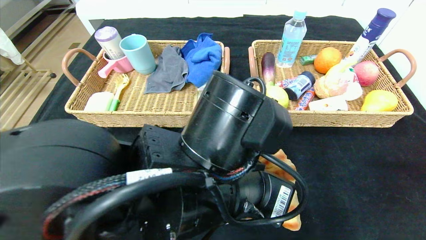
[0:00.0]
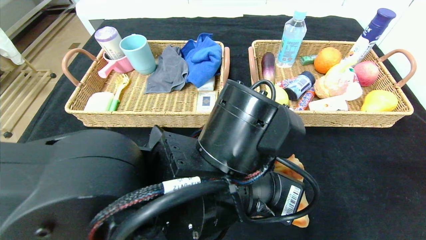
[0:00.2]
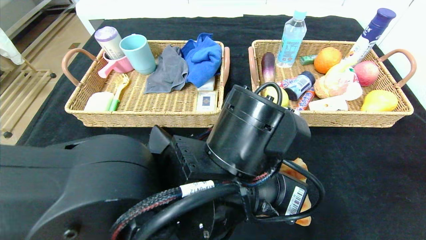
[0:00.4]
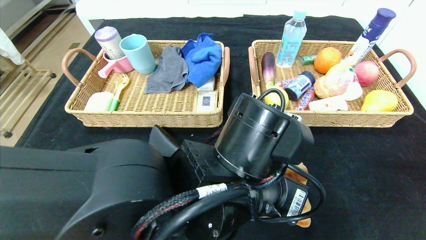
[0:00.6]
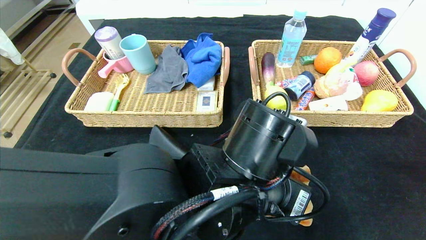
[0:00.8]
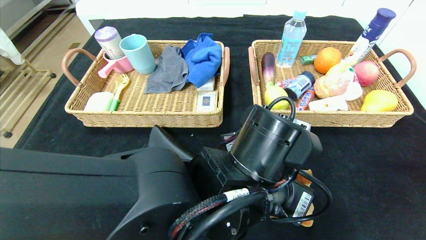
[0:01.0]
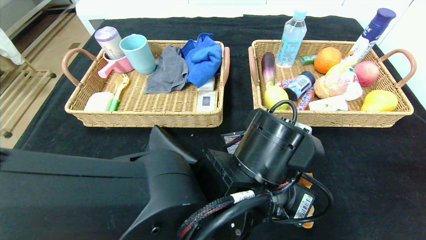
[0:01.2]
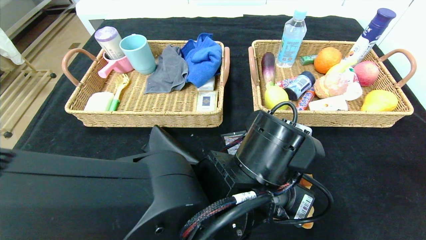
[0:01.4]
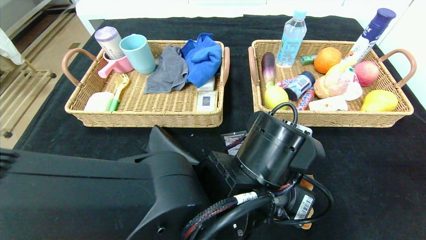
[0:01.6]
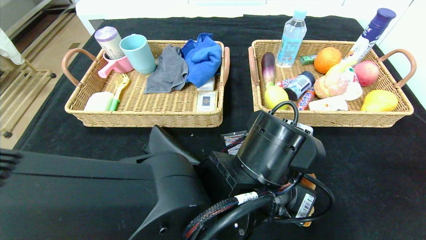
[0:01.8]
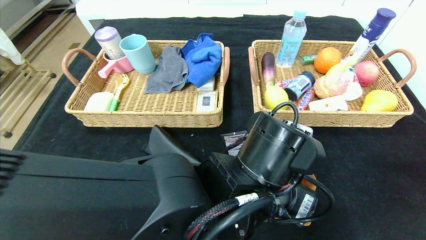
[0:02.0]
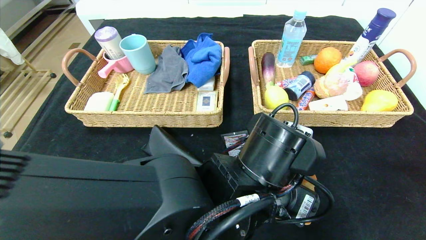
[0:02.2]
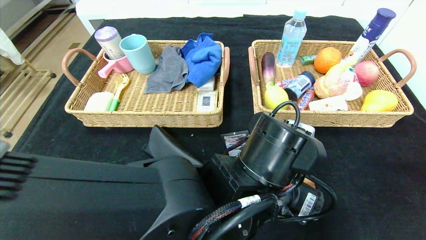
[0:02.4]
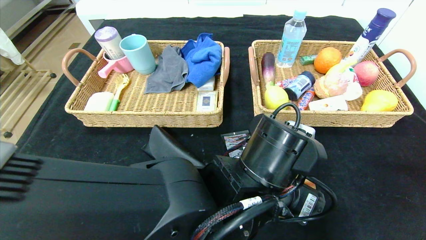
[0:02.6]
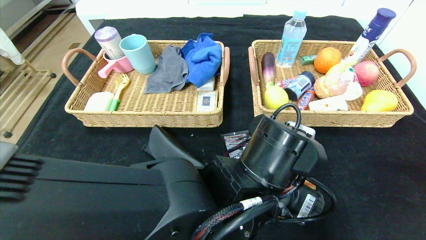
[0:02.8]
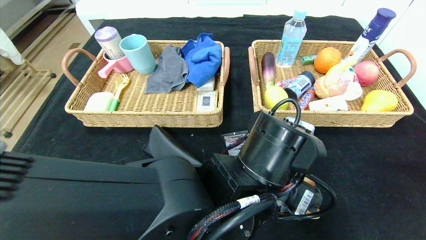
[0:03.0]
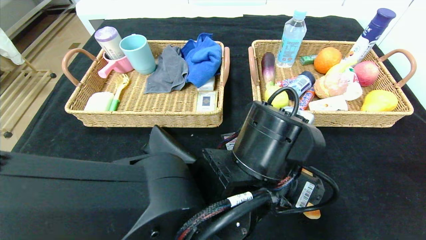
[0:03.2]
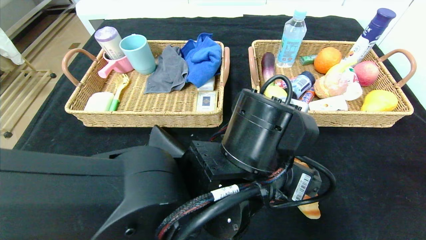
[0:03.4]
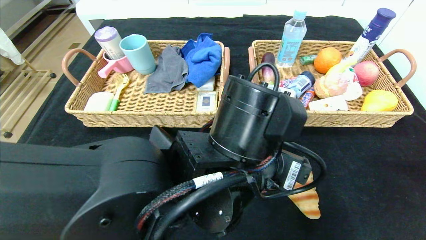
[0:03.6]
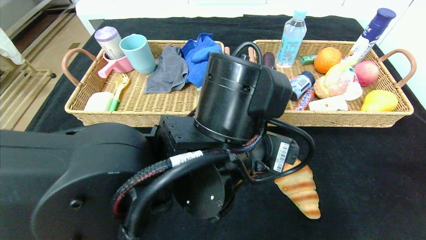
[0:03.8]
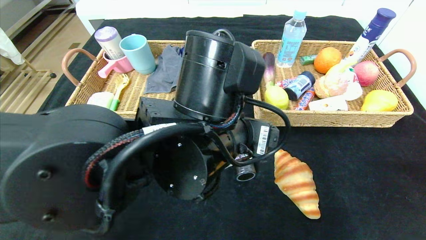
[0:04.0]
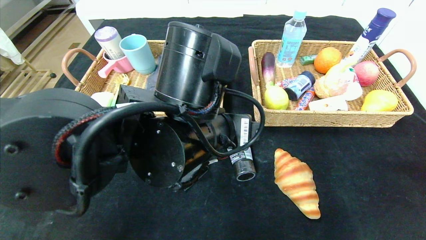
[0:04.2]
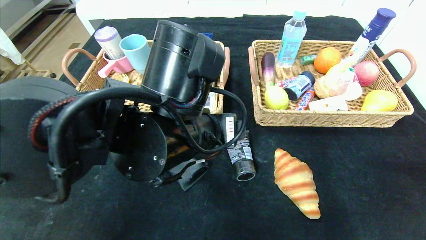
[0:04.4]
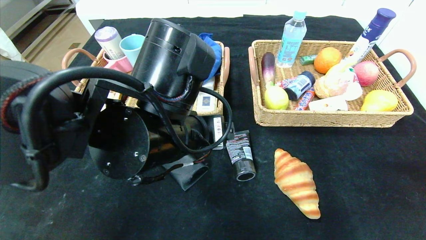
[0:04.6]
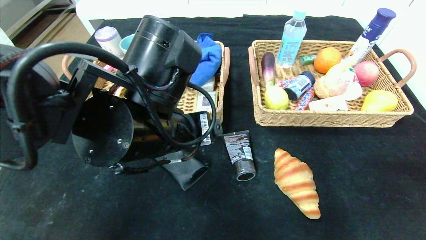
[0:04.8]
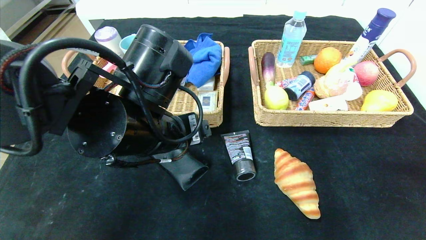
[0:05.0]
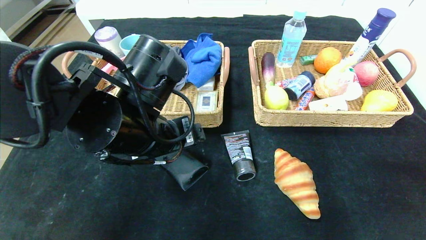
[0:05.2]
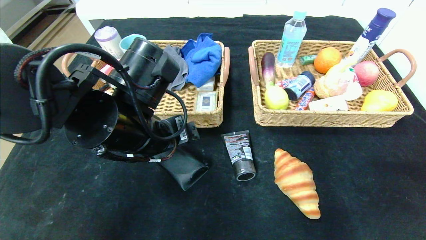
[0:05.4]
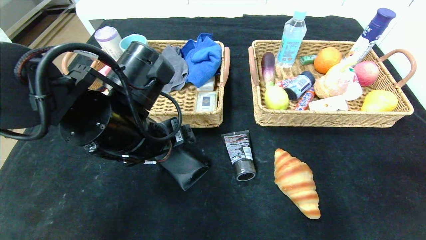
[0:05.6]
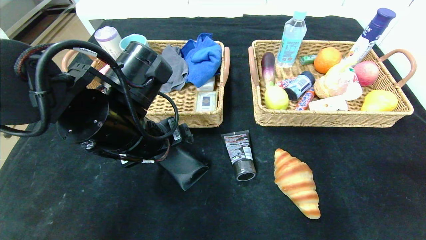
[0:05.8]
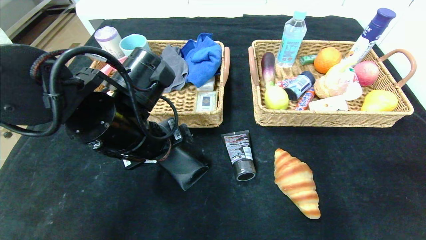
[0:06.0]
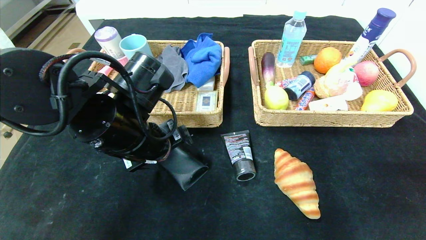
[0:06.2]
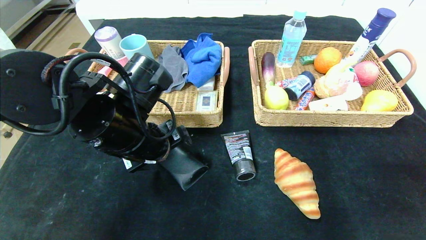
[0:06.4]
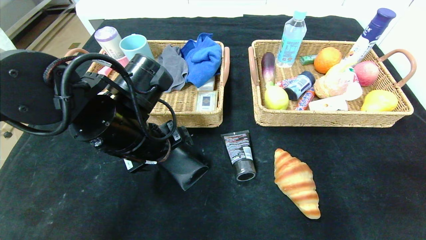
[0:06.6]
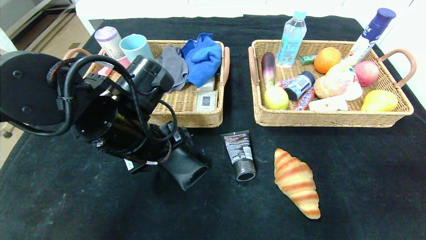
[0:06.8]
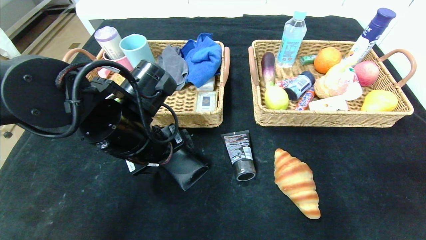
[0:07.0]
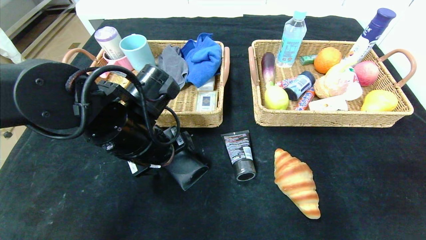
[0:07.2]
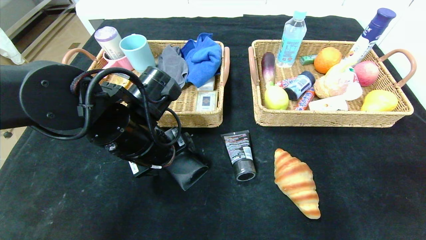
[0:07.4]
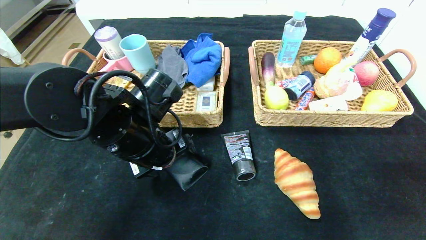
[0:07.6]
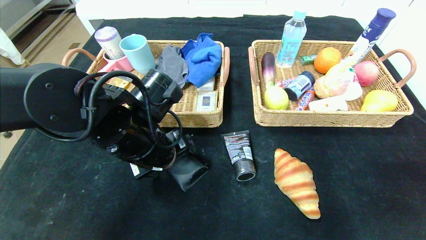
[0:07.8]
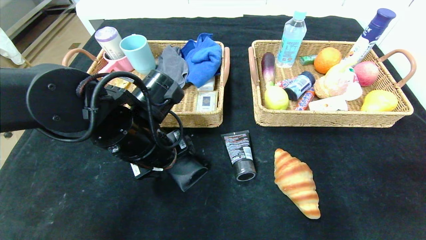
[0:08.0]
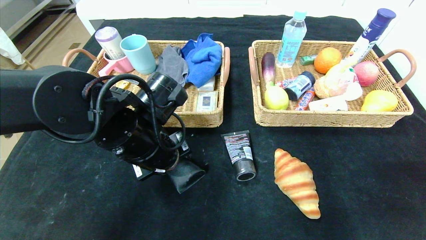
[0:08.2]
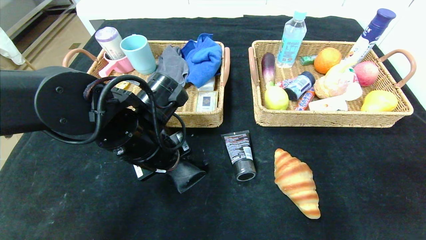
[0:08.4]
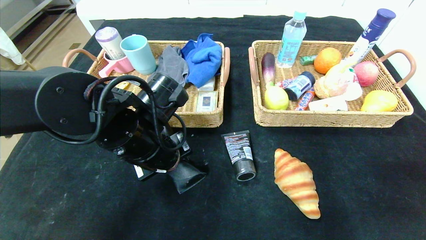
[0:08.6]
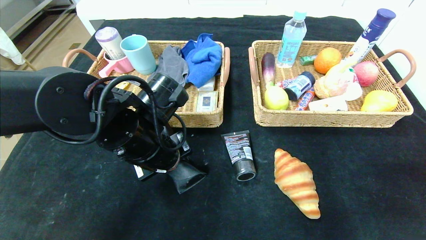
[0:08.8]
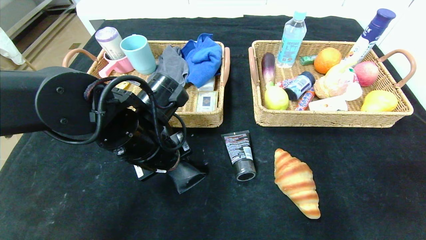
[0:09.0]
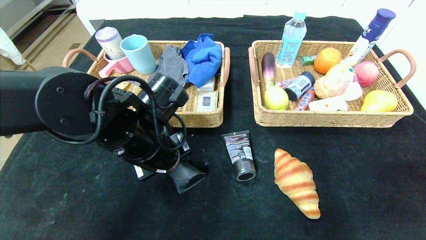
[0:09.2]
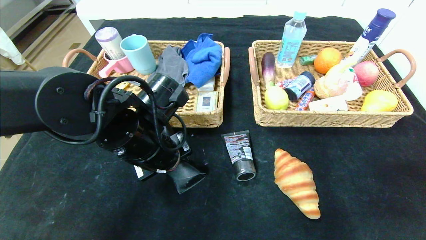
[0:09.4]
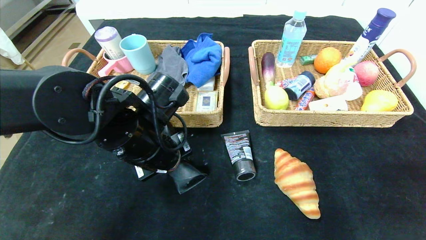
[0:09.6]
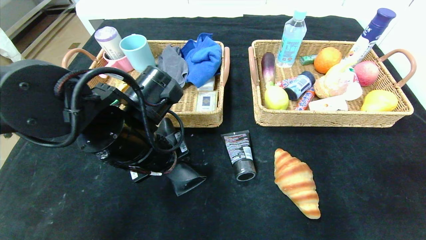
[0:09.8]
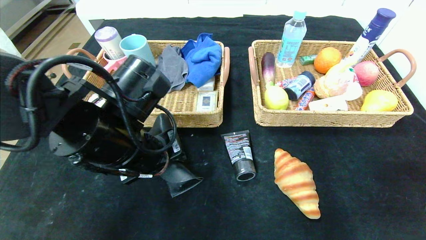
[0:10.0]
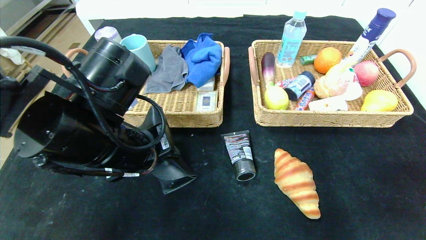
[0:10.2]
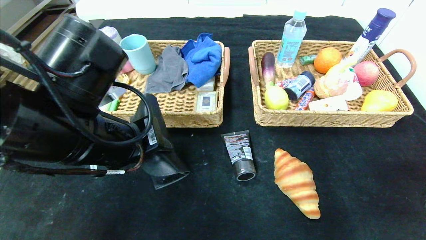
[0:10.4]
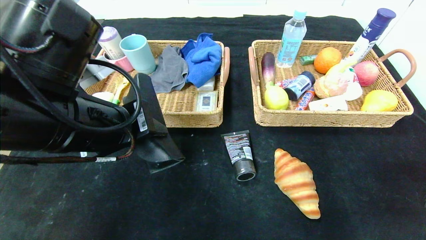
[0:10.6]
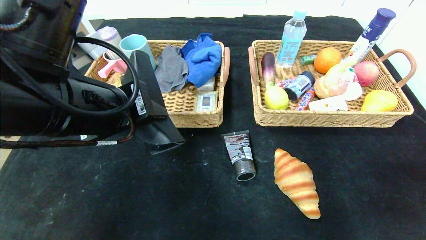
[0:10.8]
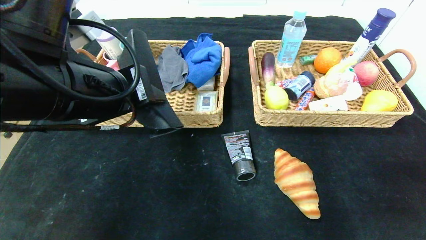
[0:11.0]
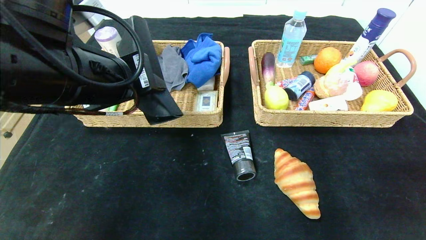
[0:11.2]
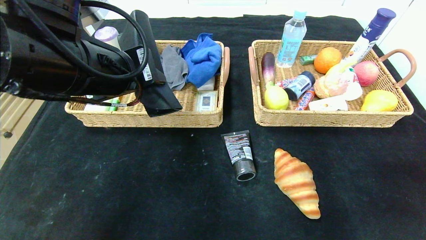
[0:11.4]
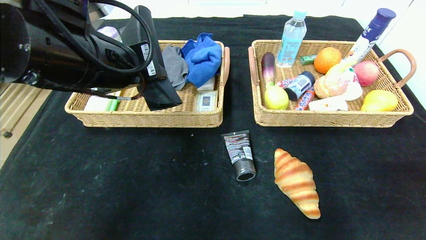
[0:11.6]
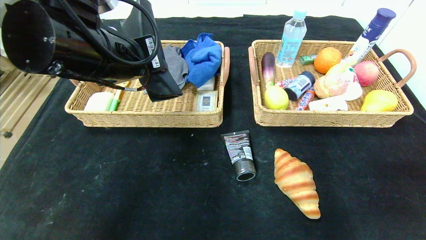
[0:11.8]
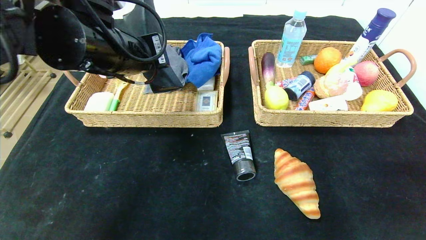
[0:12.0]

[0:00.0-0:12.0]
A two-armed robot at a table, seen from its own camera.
Step, 0:00.0 to 0:03.4: Place the croissant in the center of the table.
0:00.0 to 0:01.6: The left gripper shifts by approximately 5 cm.
0:01.6 to 0:03.0: The left gripper opens its fingers.
0:03.0 to 0:04.4: The left gripper travels to the left and upward by some 10 cm.
0:04.4 to 0:06.0: The left gripper is displaced to the left by roughly 10 cm.
0:06.0 to 0:07.6: The grippers make only small movements.
0:07.6 to 0:09.0: The left gripper closes its fingers.
0:09.0 to 0:10.4: The left gripper goes roughly 10 cm backward and upward.
0:10.4 to 0:12.0: The left gripper travels forward and upward by about 10 cm.

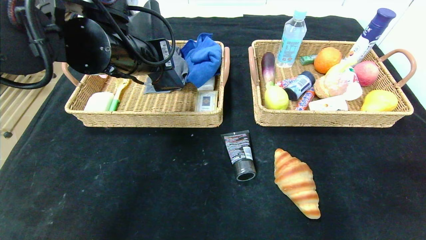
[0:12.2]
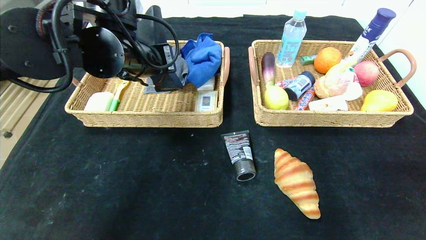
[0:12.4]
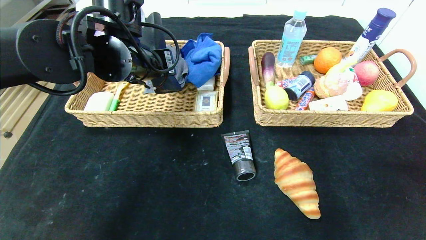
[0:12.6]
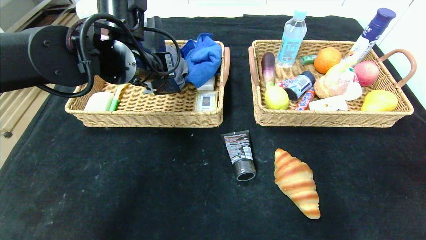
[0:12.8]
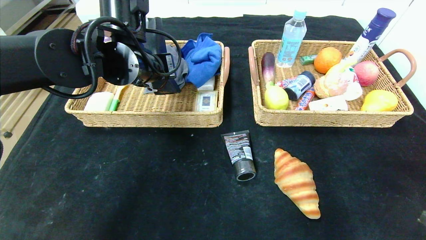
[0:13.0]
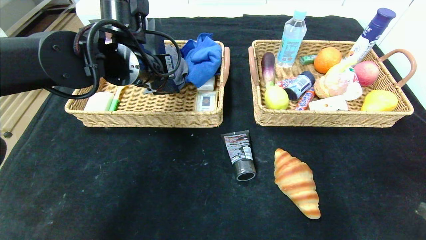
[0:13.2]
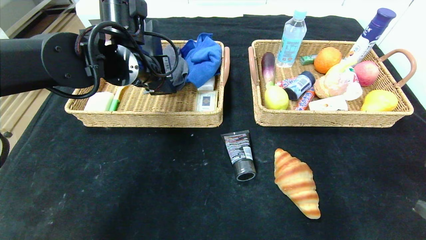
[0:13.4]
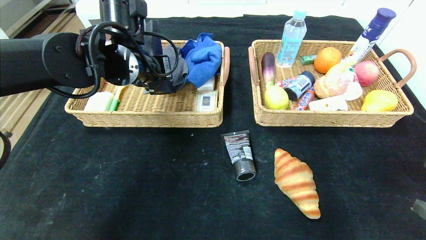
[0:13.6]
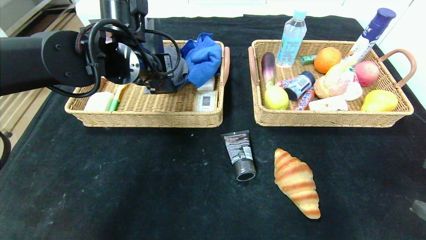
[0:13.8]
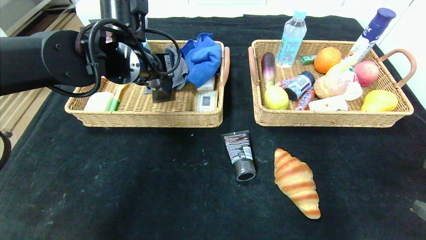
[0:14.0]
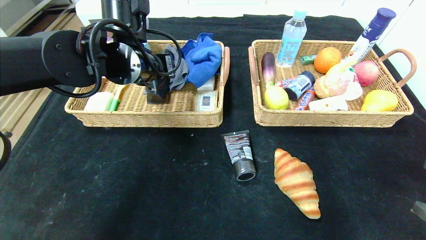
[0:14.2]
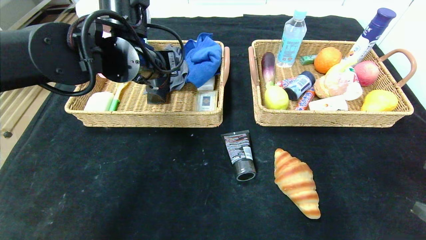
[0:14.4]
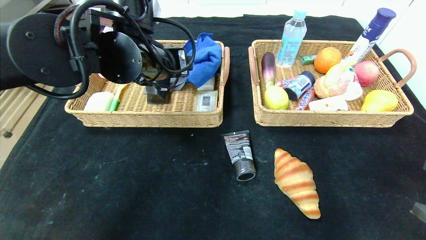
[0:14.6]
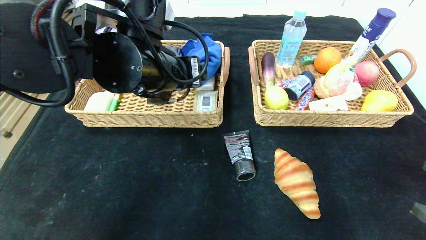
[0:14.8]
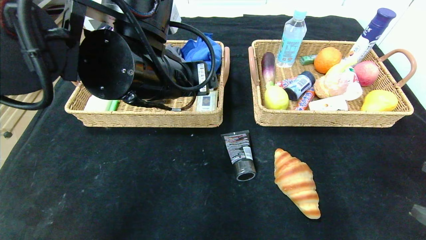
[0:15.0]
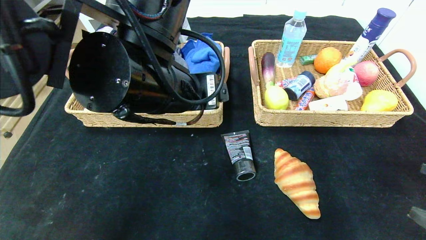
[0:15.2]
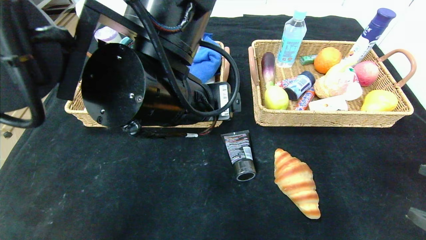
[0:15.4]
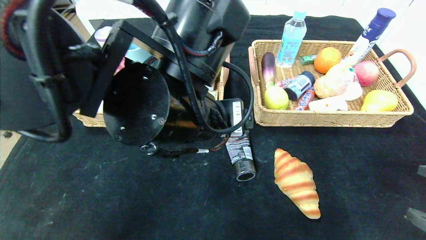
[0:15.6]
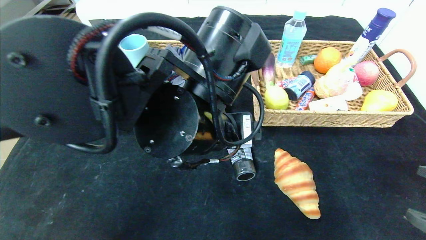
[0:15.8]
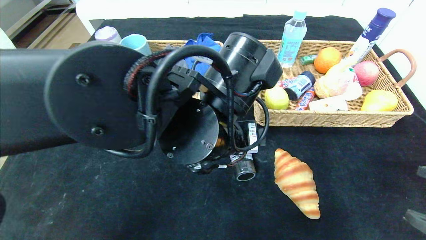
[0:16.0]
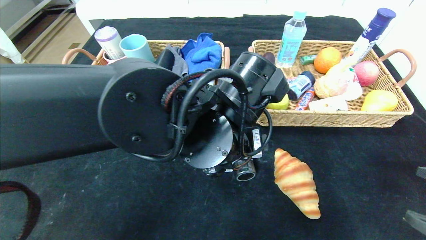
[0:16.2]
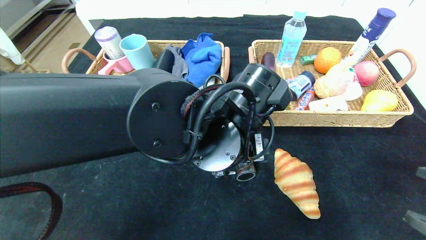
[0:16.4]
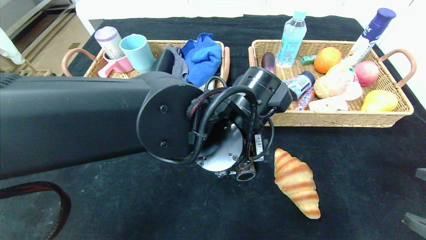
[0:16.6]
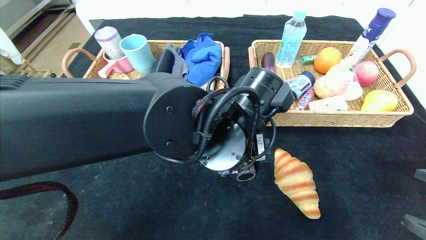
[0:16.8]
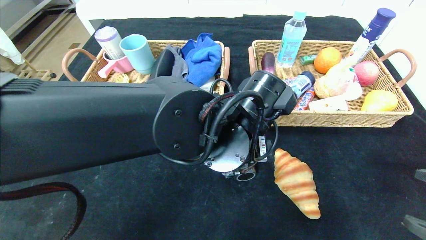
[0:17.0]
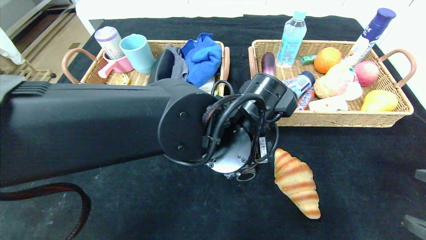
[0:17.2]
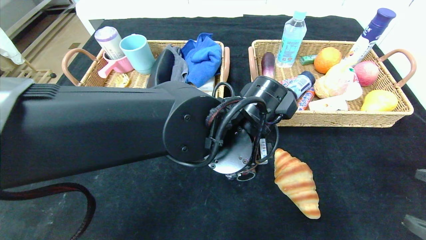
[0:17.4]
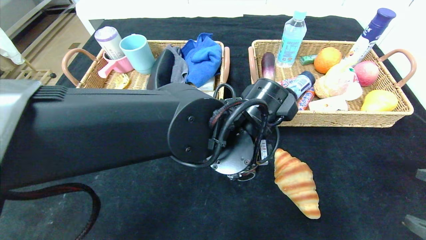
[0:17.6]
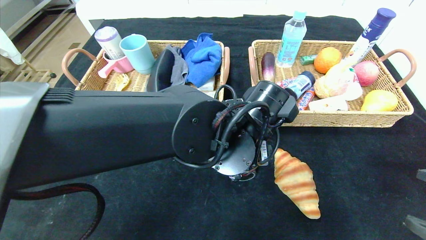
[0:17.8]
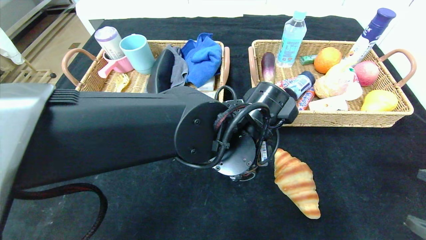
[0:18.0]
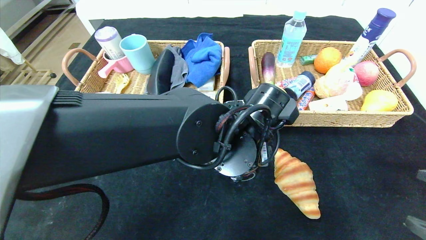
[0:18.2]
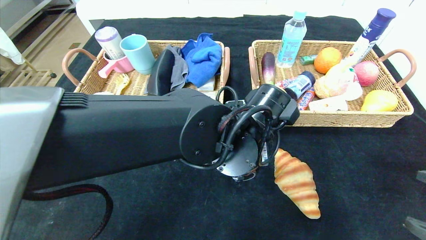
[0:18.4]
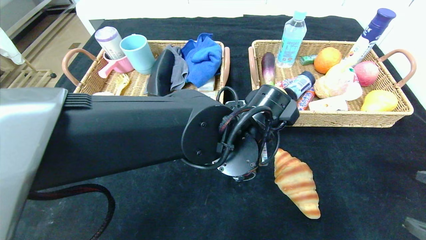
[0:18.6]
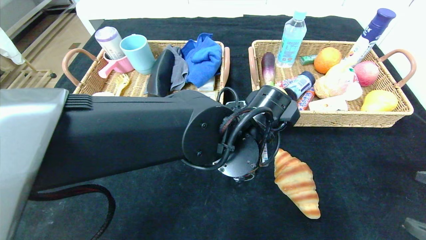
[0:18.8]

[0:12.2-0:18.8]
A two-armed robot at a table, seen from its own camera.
Step, 0:12.2 to 0:14.6: Grasp the glasses case and put it in the left basket.
0:12.2 to 0:13.8: The left gripper goes some 5 cm forward.
0:13.8 to 0:15.4: The left gripper travels backward and to the right by about 15 cm, and opens.
0:15.4 to 0:17.2: The left gripper heads downward and to the right, covering about 10 cm.
0:17.2 to 0:18.8: The left gripper closes up.
